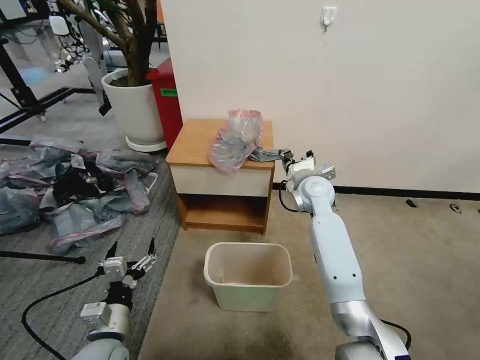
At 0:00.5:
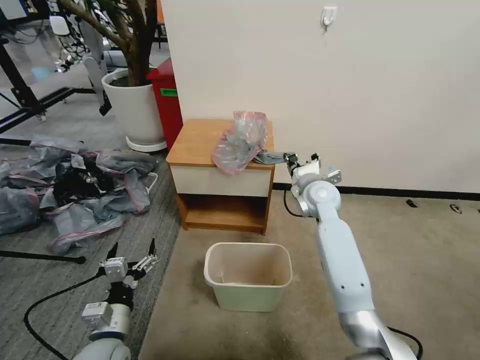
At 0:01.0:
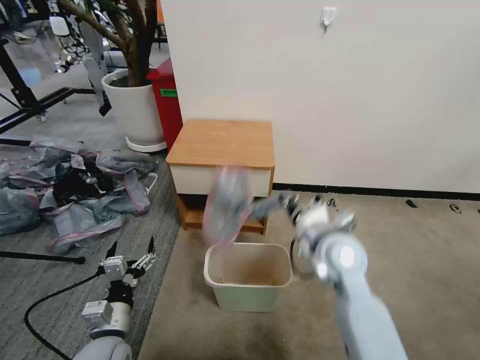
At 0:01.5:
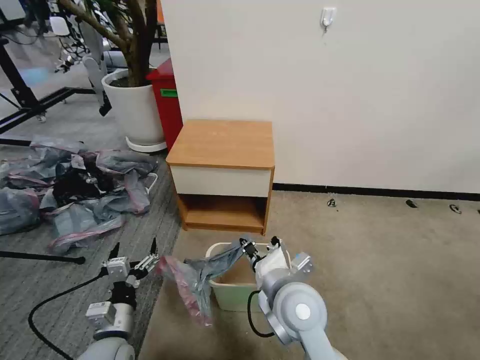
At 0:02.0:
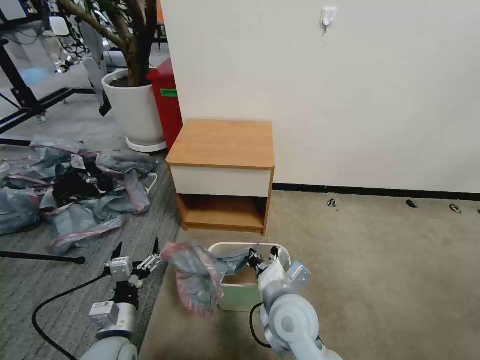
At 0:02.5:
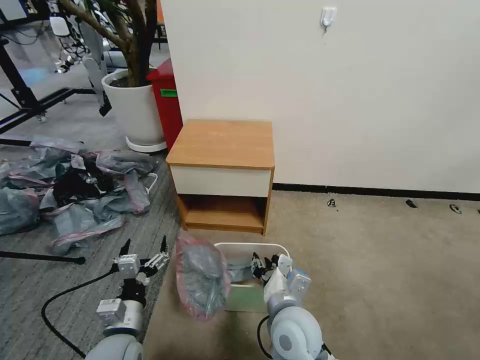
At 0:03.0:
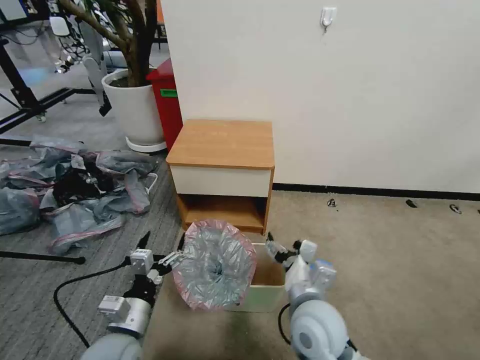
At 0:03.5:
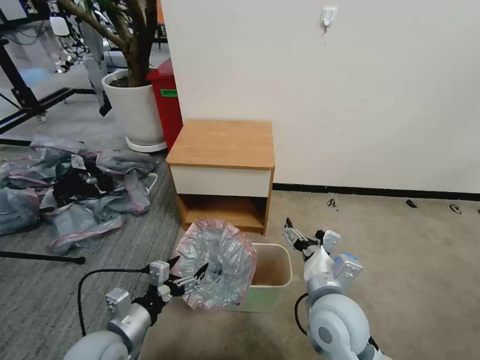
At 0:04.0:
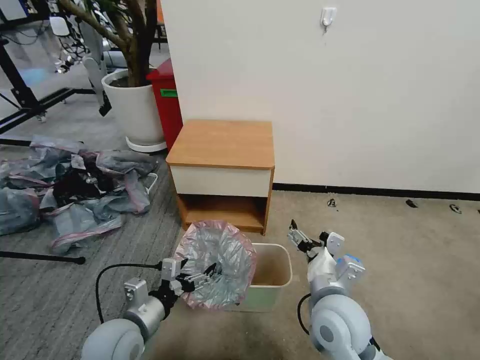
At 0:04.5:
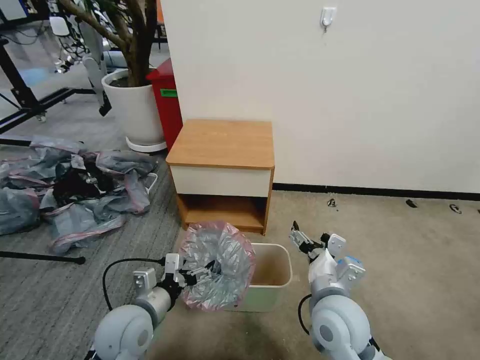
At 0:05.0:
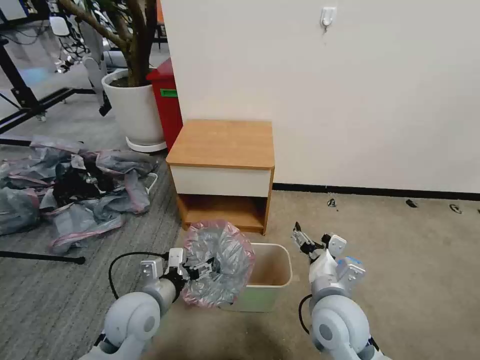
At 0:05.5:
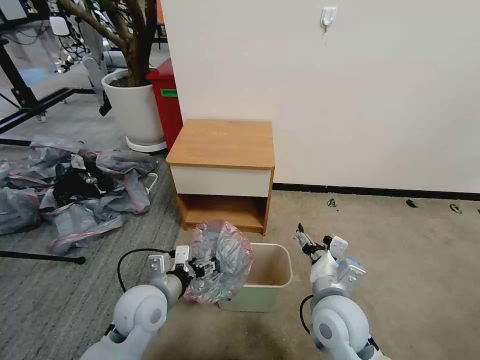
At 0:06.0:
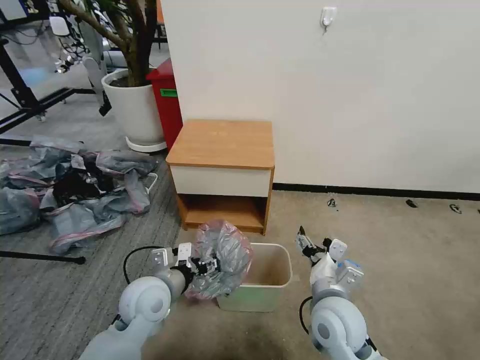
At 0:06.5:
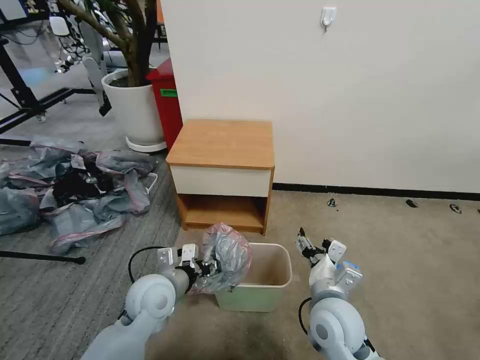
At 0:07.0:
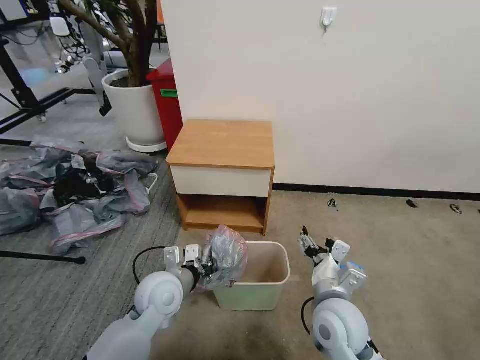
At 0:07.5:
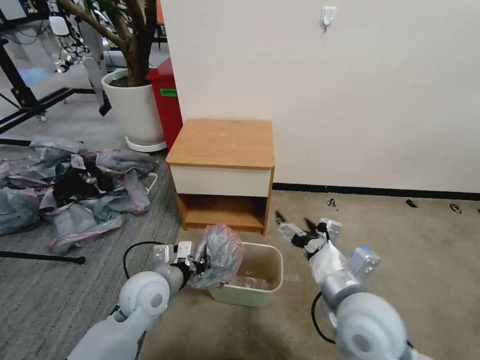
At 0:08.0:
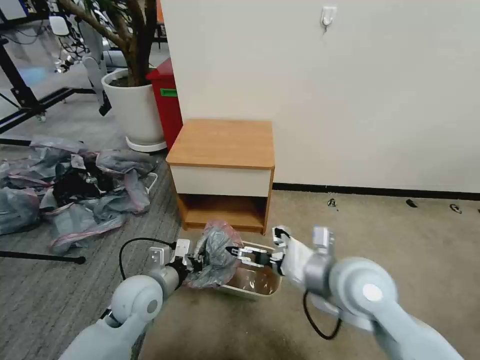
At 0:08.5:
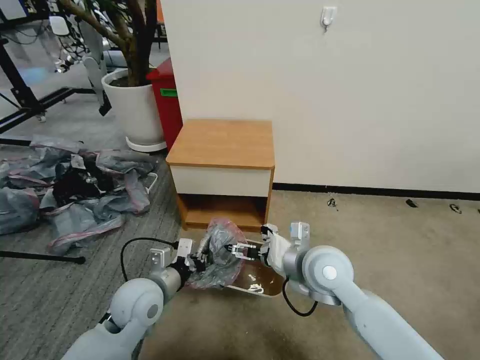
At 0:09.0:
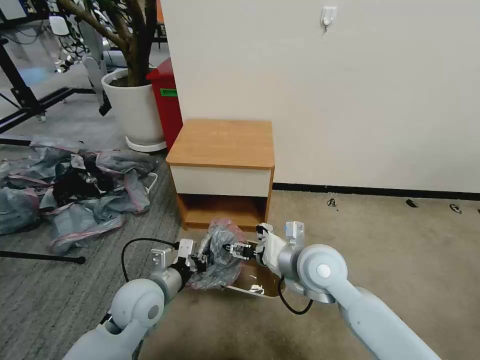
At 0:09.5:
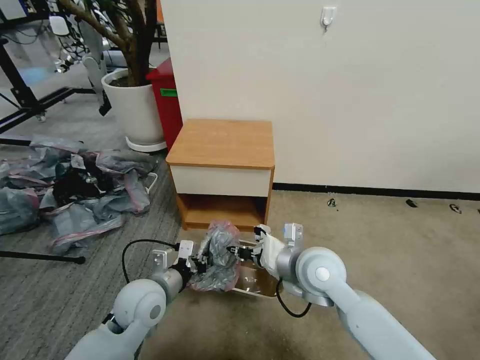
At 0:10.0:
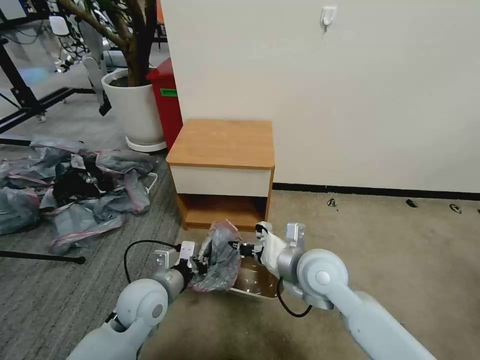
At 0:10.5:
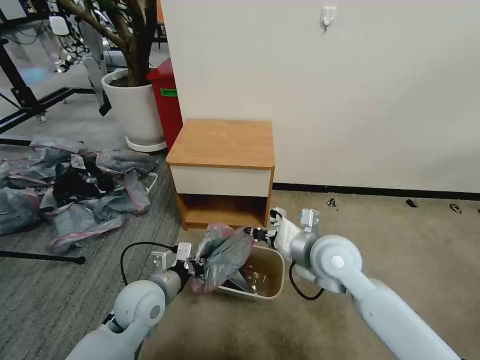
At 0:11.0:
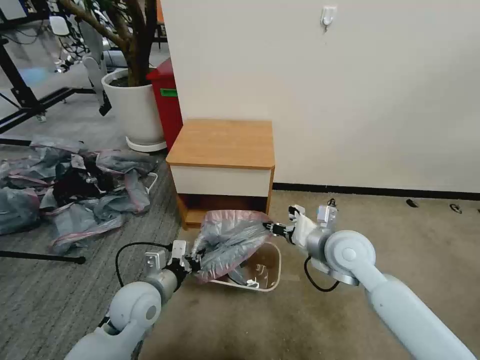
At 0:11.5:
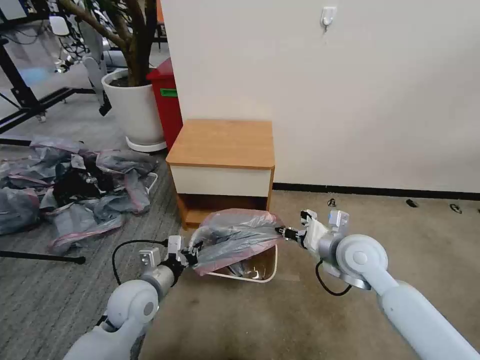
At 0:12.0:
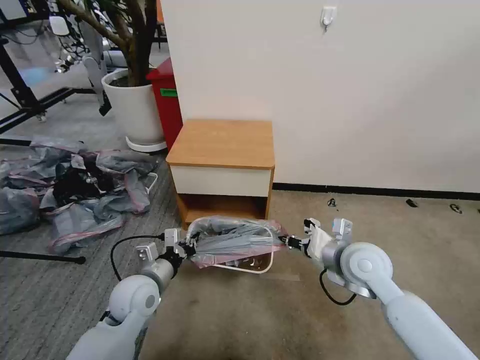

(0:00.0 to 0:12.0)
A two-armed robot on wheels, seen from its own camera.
Task of the whole recording: Pick up the garbage bag from the table and place it over the trash can.
0:00.0 - 0:02.0: The right gripper shifts roughly 25 cm backward.
0:02.0 - 0:04.0: The right gripper shifts some 10 cm to the right, and opens its fingers; the left gripper moves approximately 5 cm.
0:04.0 - 0:06.0: The left gripper travels forward by approximately 10 cm.
0:06.0 - 0:08.0: The left gripper closes. The right gripper goes about 10 cm upward.
0:08.0 - 0:10.0: The right gripper shifts approximately 5 cm downward, and closes its fingers.
0:10.0 - 0:12.0: The right gripper moves to the right, approximately 10 cm.

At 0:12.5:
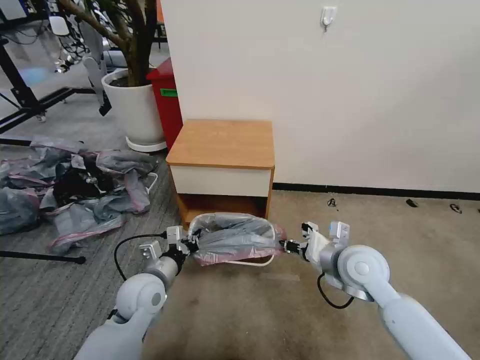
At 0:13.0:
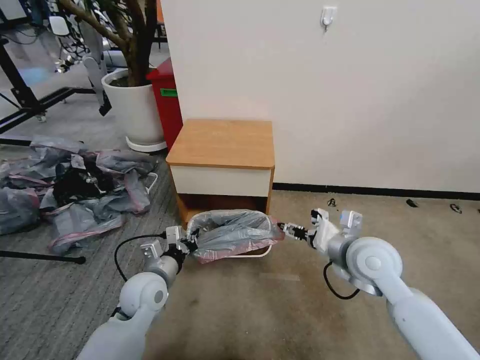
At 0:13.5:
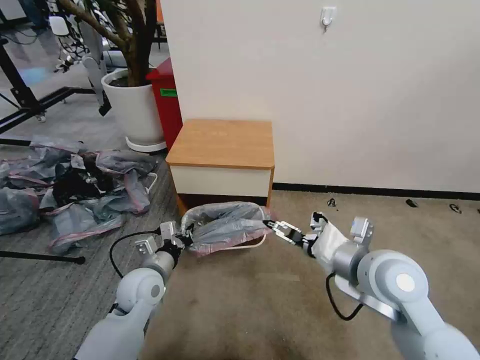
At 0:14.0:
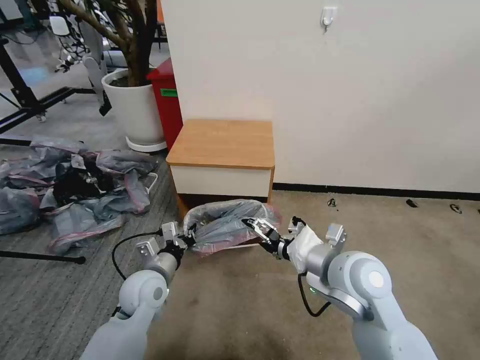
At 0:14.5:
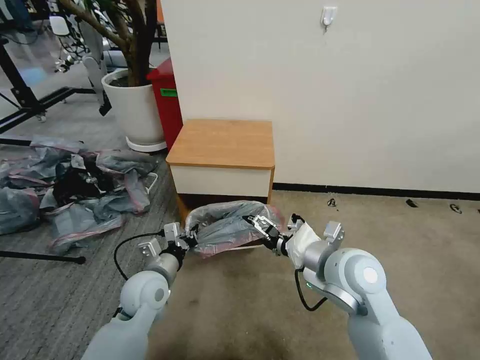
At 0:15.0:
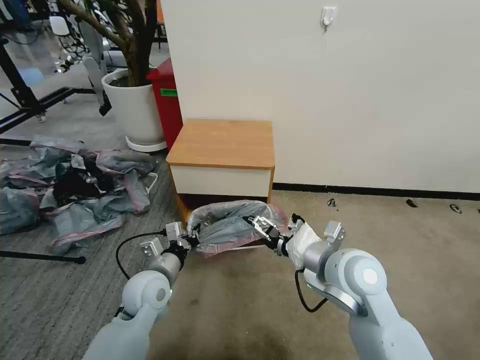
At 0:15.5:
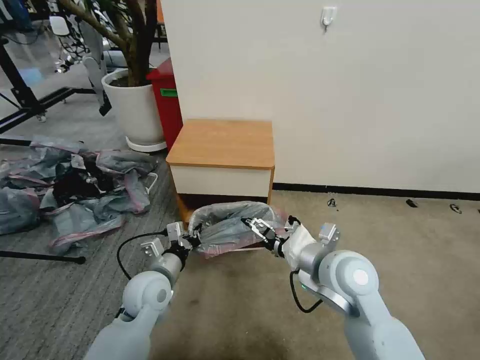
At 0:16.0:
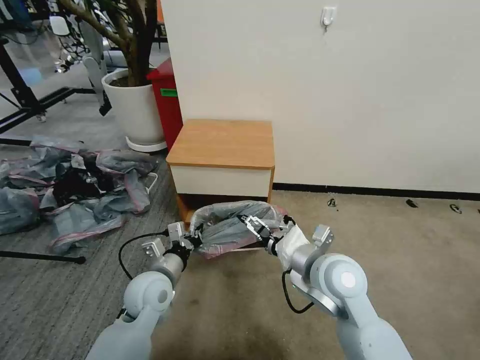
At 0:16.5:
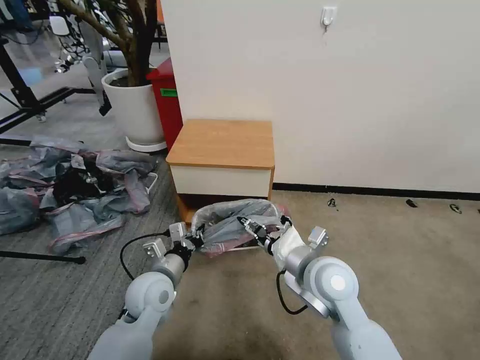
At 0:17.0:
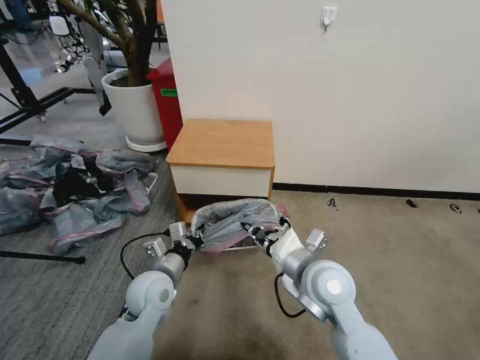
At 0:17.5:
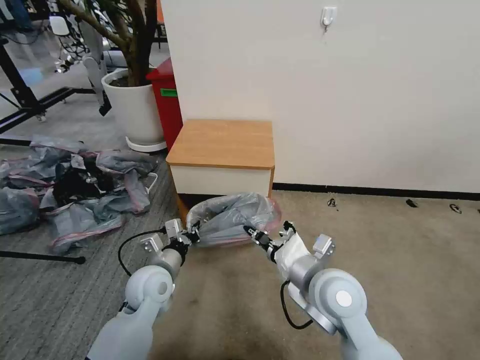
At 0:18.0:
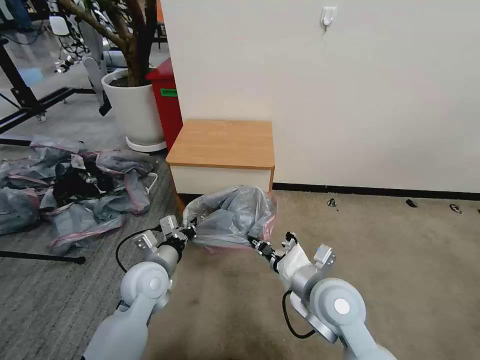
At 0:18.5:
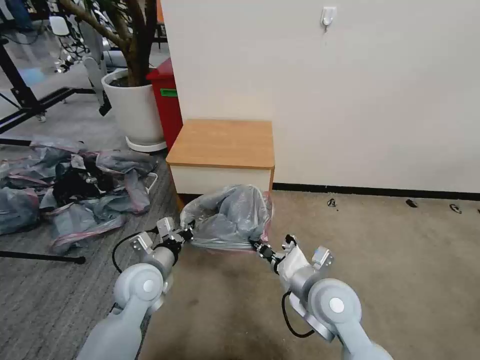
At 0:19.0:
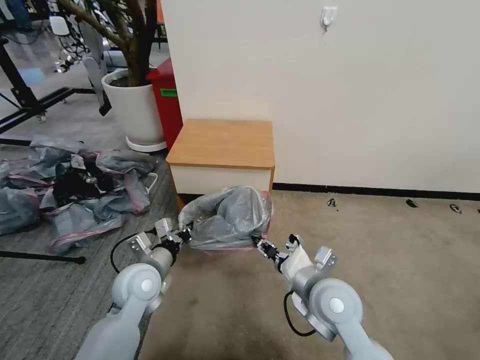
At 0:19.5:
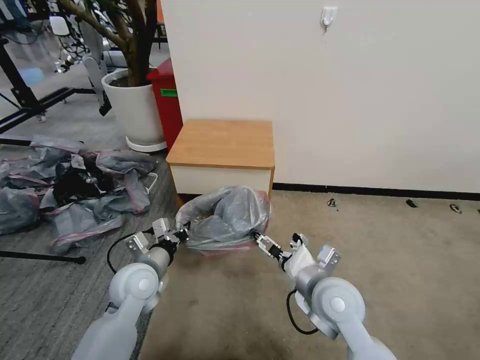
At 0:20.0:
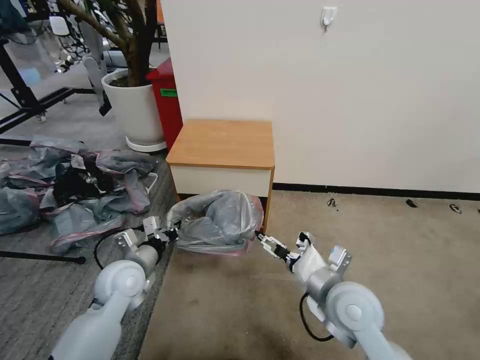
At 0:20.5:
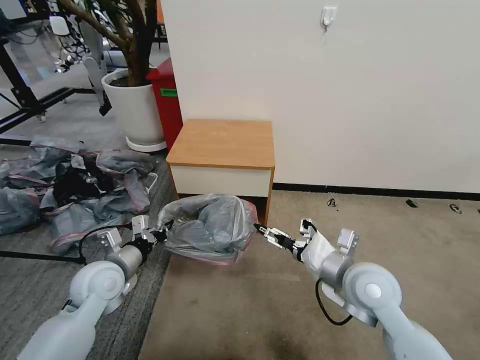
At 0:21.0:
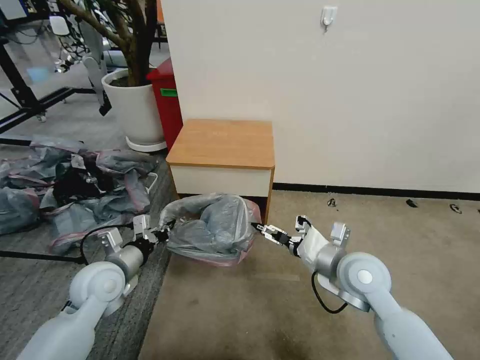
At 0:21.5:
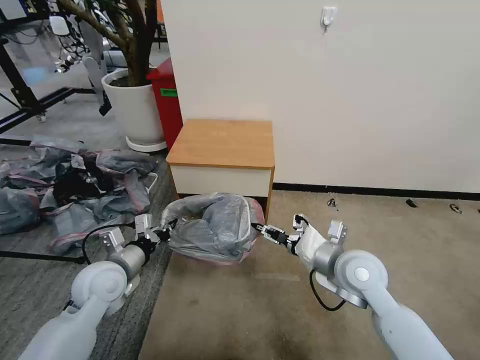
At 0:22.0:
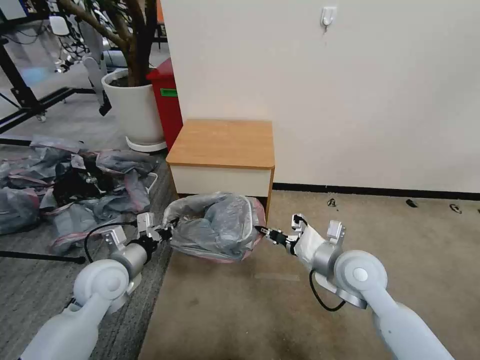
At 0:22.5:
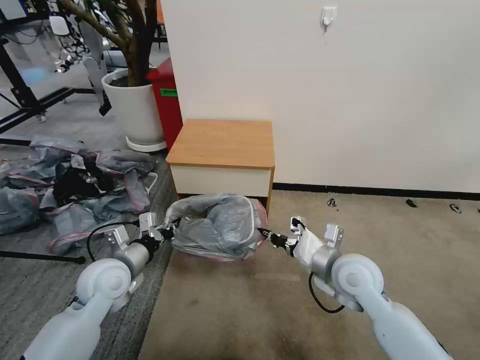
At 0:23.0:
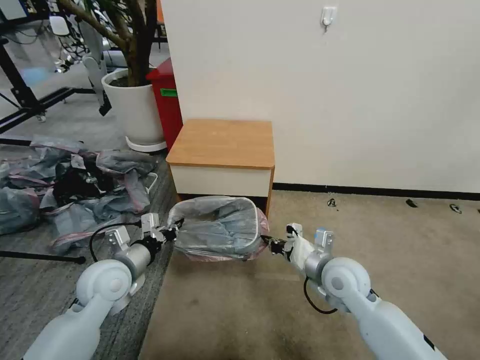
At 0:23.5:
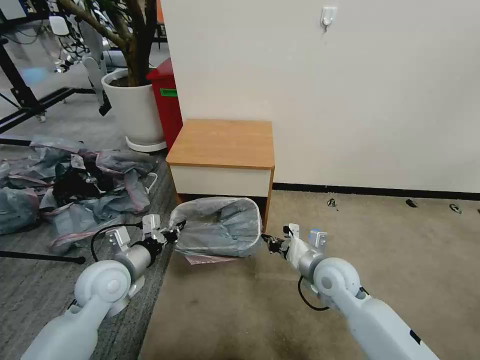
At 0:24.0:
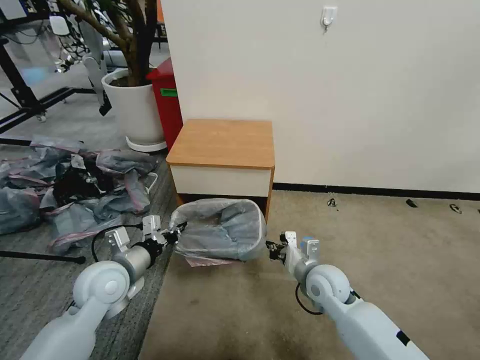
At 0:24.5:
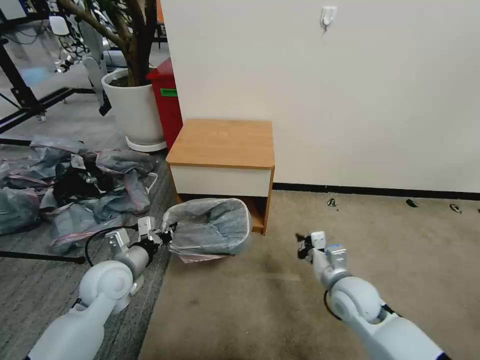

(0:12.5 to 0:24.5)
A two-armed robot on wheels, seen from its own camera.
Task of the whole recording: Pick up the garbage bag from the table and place it over the trash can.
0:12.5 - 0:14.5: The right gripper shifts some 10 cm upward and to the left, and opens up.
0:14.5 - 0:16.5: The right gripper closes its fingers.
0:16.5 - 0:18.5: The right gripper closes.
0:18.5 - 0:20.5: The left gripper is displaced to the left by about 10 cm. The right gripper is displaced to the right by some 5 cm, and opens up.
0:20.5 - 0:22.5: The right gripper closes its fingers.
0:22.5 - 0:24.5: The right gripper heads downward, covering approximately 10 cm.

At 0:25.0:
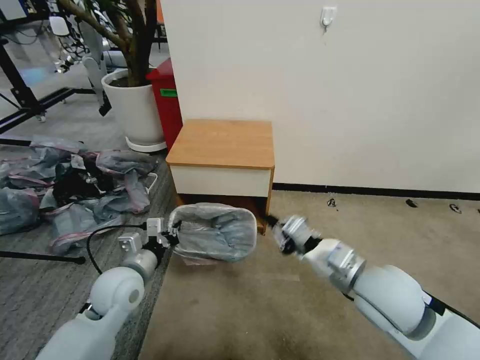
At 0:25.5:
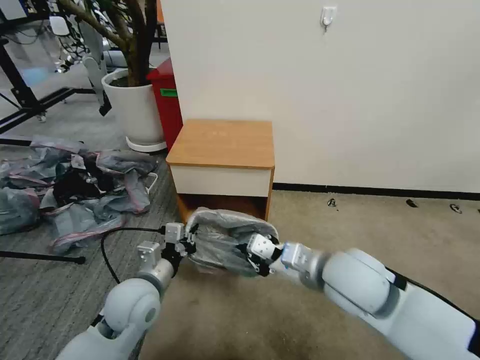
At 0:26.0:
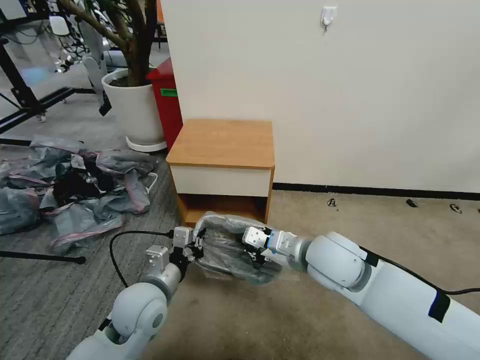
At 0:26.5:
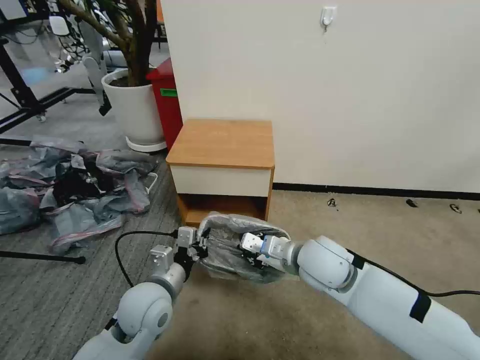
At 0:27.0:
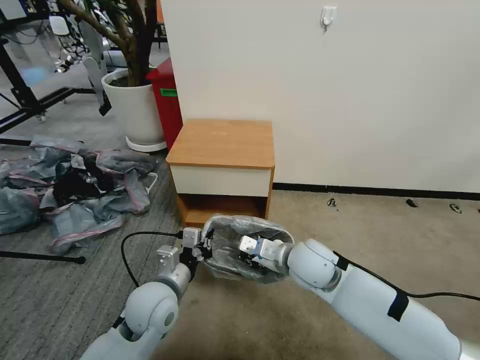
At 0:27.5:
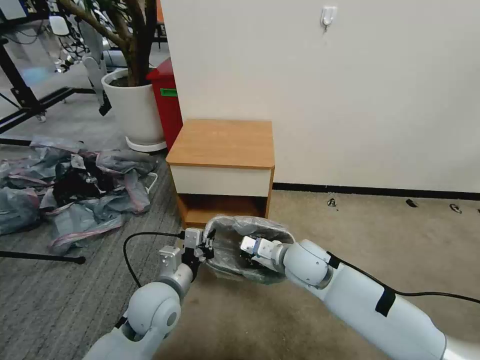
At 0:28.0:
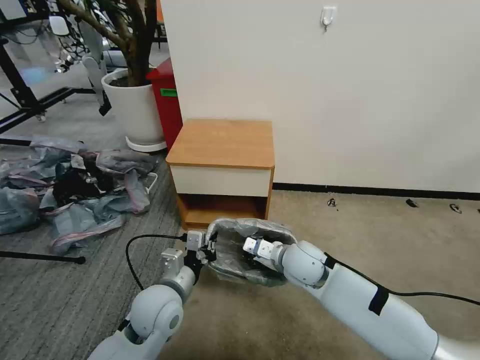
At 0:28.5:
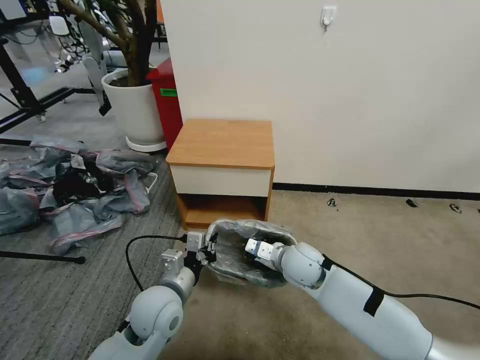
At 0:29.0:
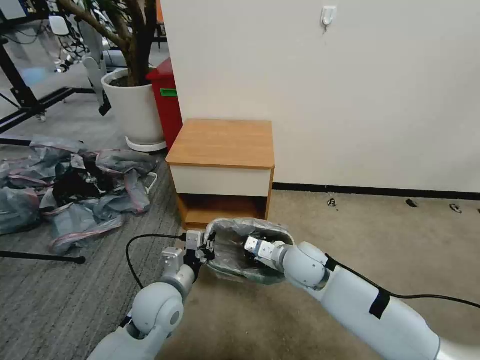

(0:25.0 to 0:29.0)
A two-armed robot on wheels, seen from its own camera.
Task of the whole recording: Pick up the garbage bag from the table and place it over the trash can.
0:25.0 - 0:27.0: The right gripper moves to the left, forward and downward, roughly 15 cm. Meanwhile the left gripper is displaced to the right by about 10 cm.
